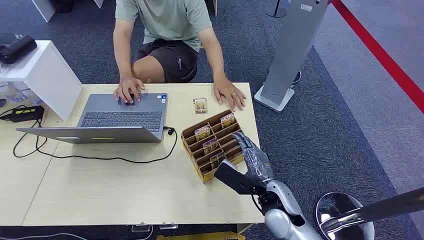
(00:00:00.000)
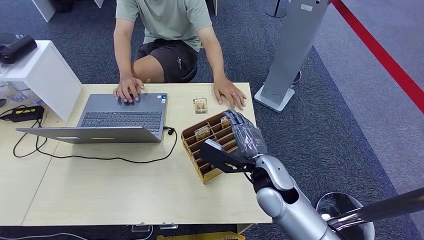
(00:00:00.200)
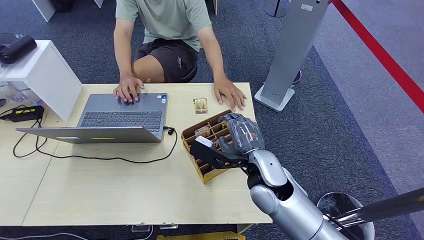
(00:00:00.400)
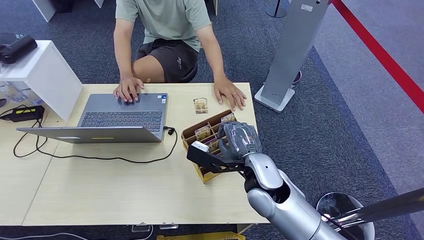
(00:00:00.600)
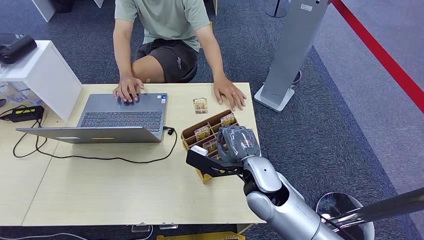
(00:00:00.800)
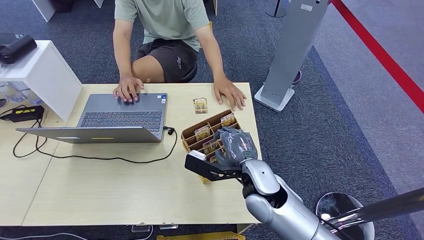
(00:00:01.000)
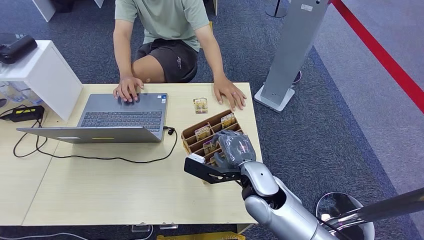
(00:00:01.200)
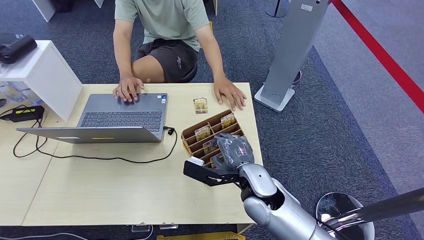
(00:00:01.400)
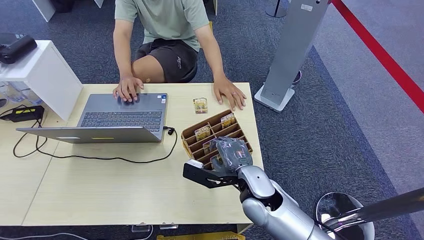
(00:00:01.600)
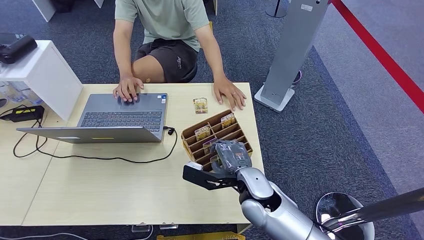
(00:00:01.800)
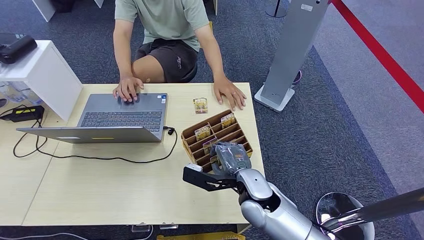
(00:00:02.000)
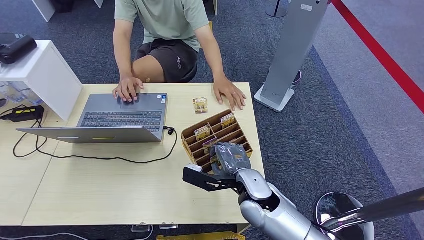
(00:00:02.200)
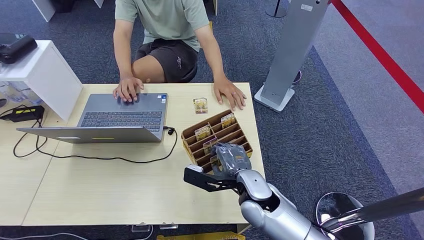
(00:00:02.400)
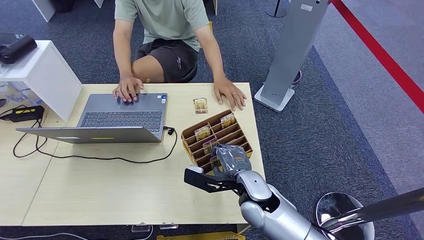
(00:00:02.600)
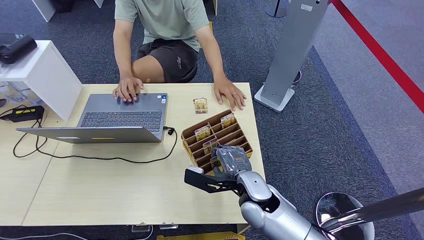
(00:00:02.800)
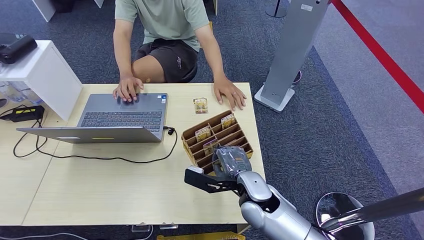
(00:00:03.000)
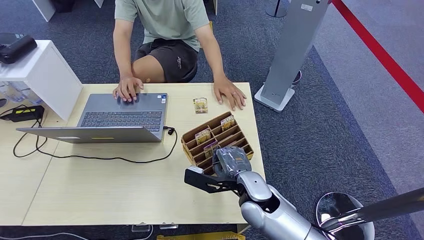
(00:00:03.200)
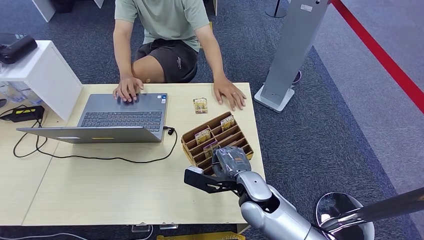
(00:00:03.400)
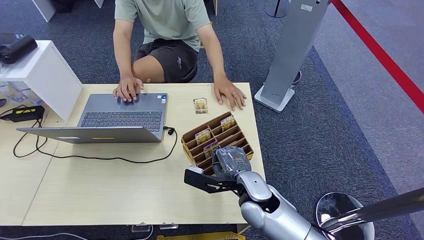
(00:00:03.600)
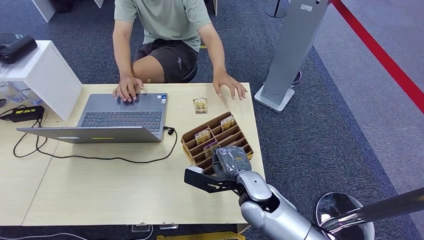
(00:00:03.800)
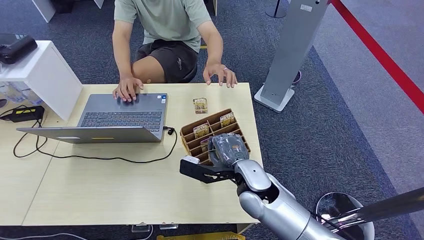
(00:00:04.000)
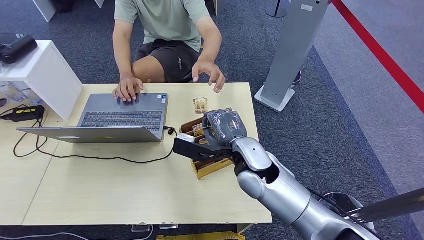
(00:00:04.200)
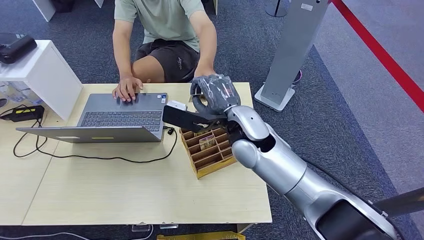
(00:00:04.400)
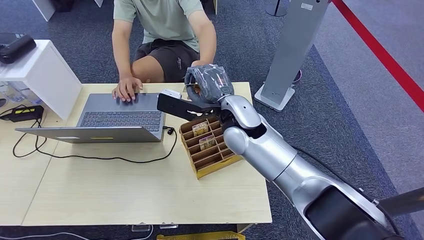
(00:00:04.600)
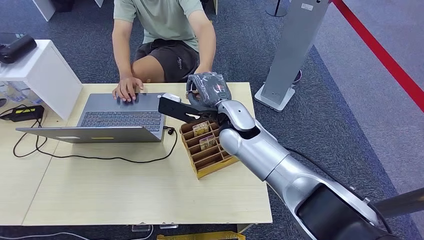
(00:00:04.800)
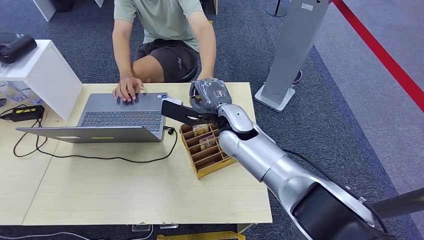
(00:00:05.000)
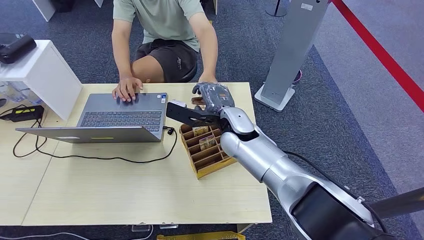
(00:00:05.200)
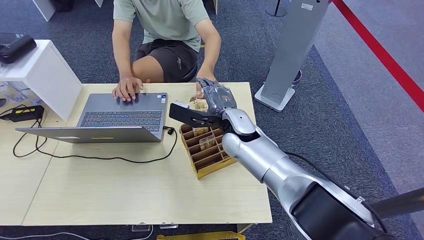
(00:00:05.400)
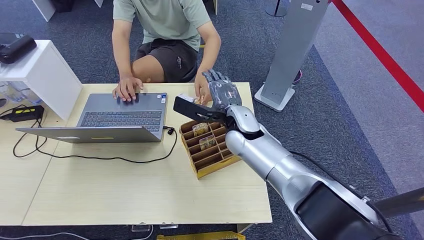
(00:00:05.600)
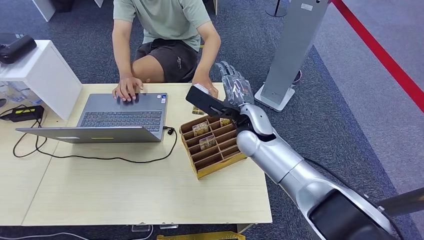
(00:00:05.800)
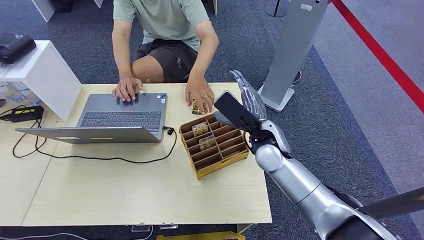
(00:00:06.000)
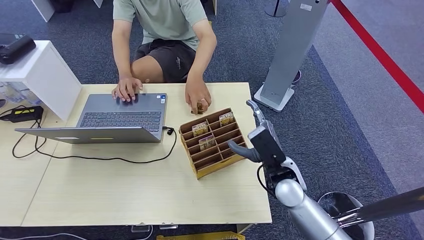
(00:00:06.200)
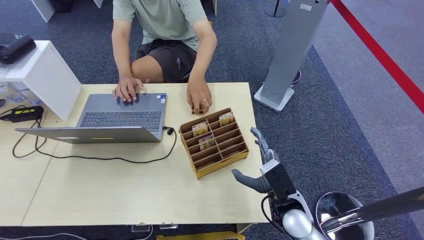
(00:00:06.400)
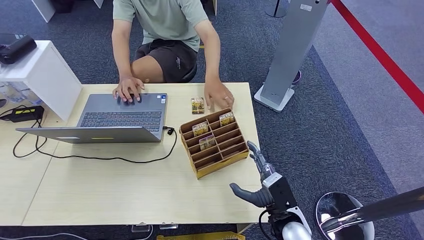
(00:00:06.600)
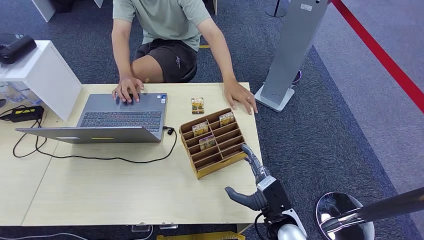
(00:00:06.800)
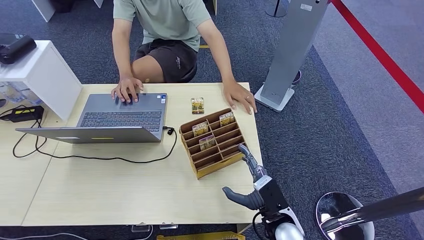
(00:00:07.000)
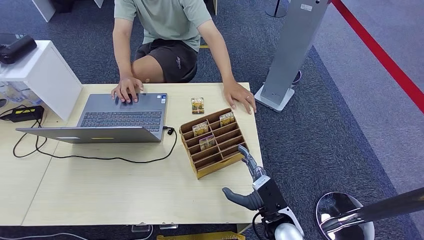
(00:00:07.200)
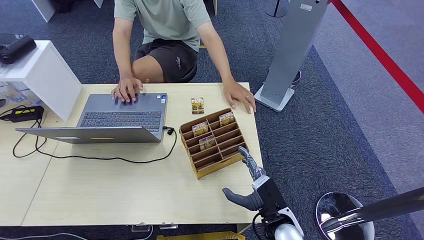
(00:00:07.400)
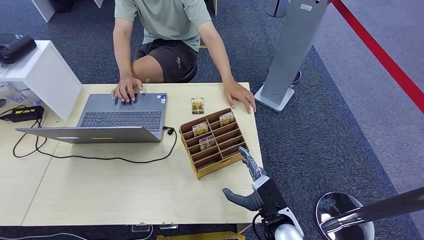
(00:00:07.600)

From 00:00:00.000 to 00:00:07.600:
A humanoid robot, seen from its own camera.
Step, from 00:00:00.000 to 00:00:04.000: Pick up the room card from the card holder.
Step, from 00:00:04.200 to 00:00:07.600: Hand the room card to the target.
From 00:00:01.600 to 00:00:03.000: There are only small adjustments of the hands.
From 00:00:03.000 to 00:00:04.600: The right hand shifts some 20 cm upward and forward.
From 00:00:04.600 to 00:00:06.000: The right hand travels to the right and downward by some 10 cm.
From 00:00:06.000 to 00:00:07.600: The right hand travels backward and downward by approximately 20 cm.
